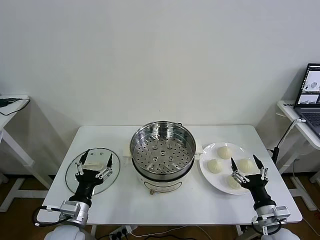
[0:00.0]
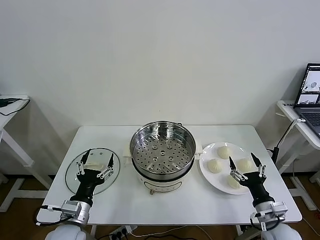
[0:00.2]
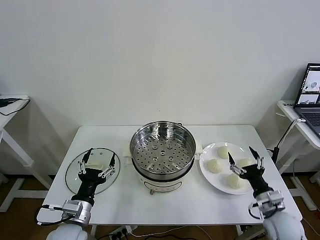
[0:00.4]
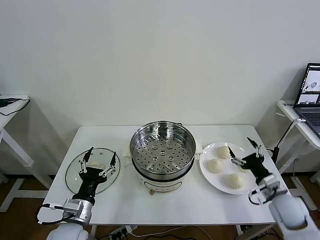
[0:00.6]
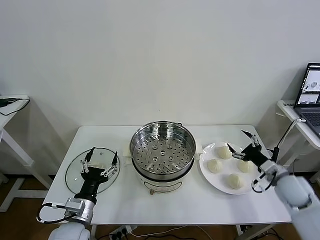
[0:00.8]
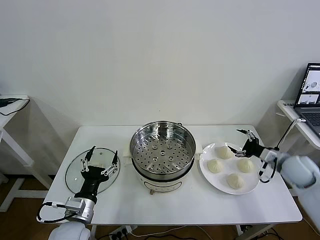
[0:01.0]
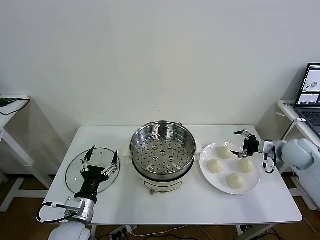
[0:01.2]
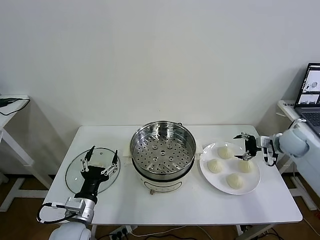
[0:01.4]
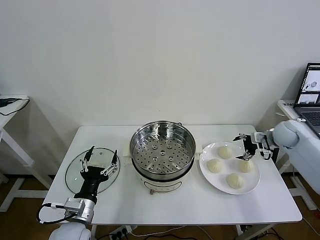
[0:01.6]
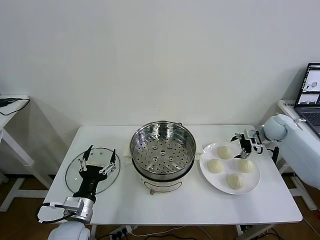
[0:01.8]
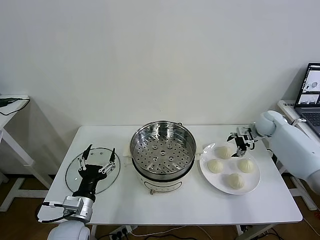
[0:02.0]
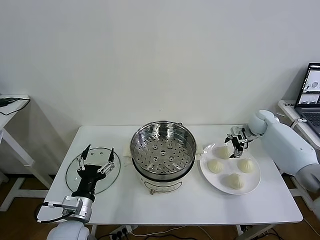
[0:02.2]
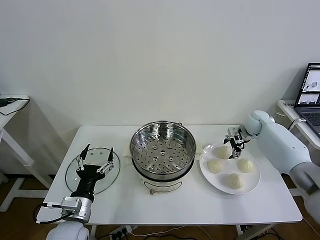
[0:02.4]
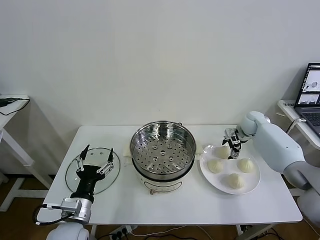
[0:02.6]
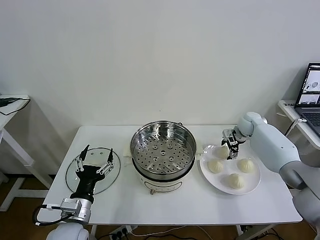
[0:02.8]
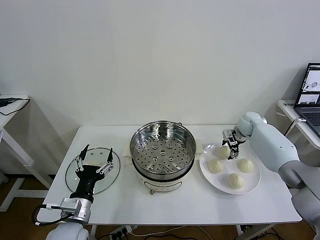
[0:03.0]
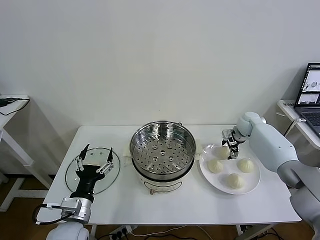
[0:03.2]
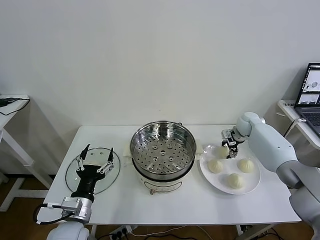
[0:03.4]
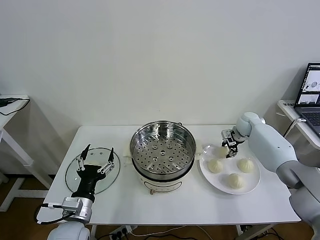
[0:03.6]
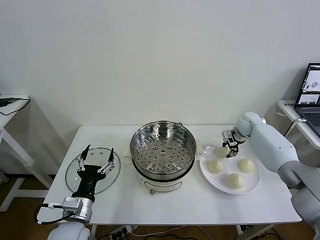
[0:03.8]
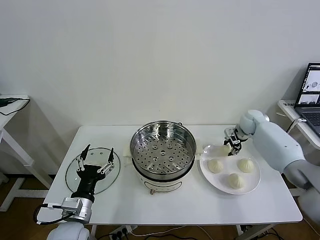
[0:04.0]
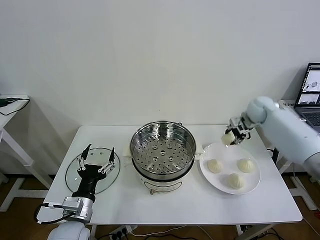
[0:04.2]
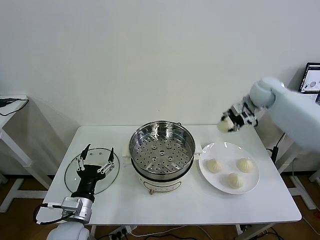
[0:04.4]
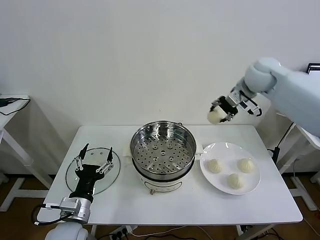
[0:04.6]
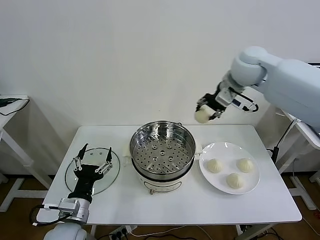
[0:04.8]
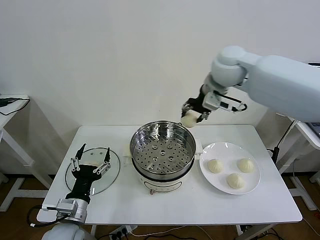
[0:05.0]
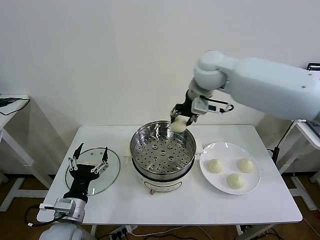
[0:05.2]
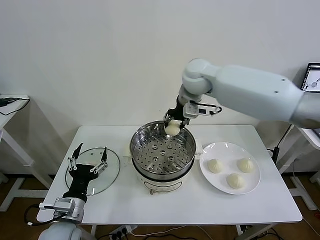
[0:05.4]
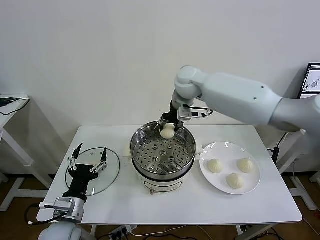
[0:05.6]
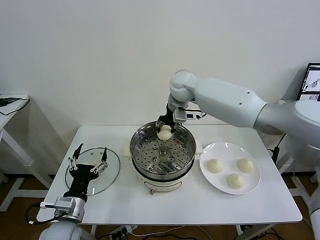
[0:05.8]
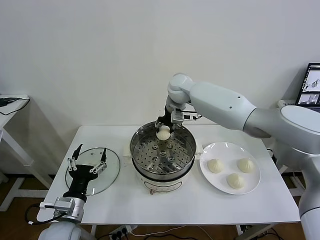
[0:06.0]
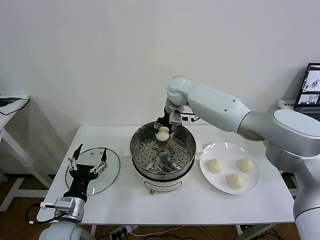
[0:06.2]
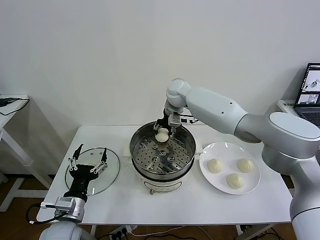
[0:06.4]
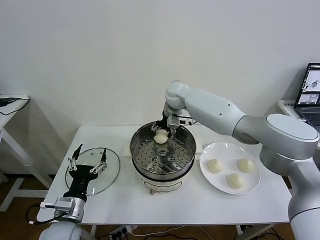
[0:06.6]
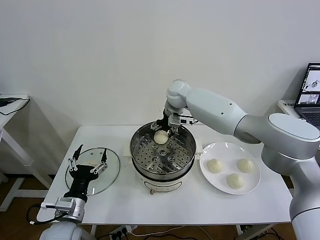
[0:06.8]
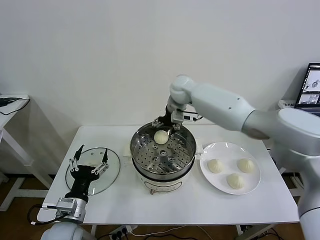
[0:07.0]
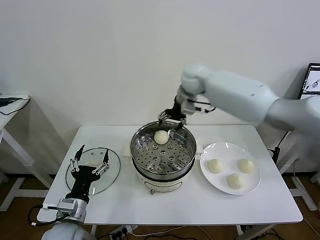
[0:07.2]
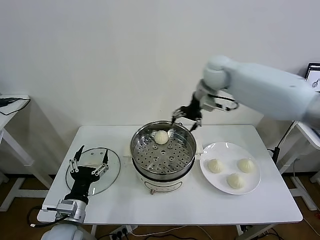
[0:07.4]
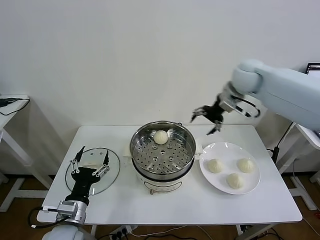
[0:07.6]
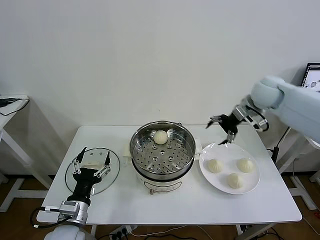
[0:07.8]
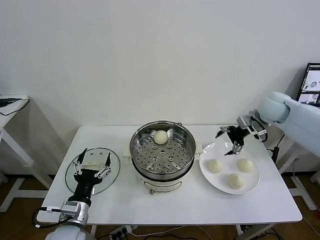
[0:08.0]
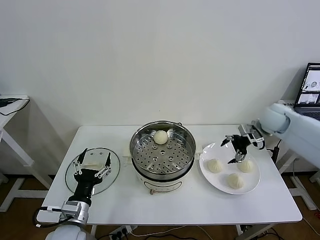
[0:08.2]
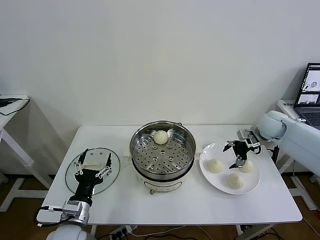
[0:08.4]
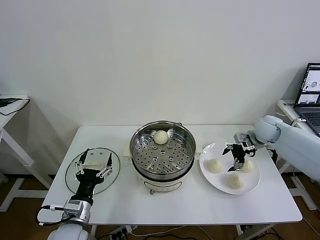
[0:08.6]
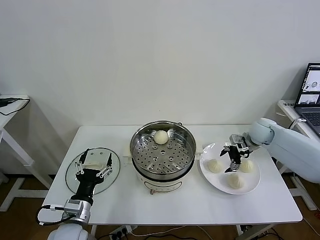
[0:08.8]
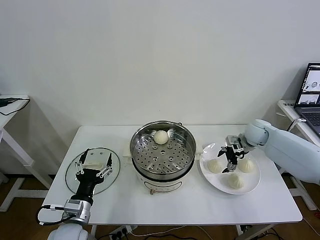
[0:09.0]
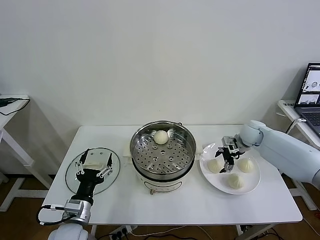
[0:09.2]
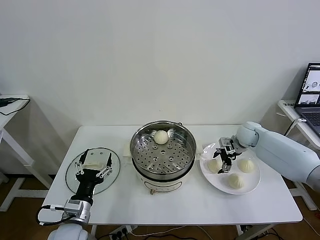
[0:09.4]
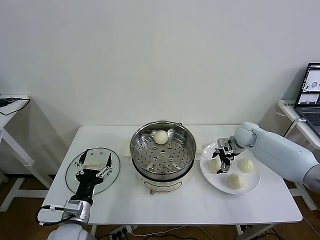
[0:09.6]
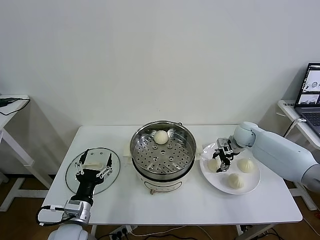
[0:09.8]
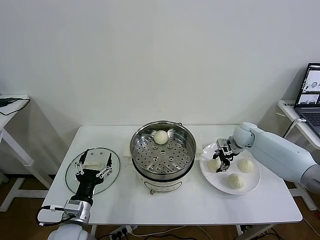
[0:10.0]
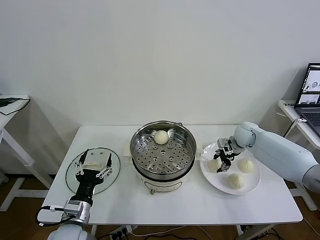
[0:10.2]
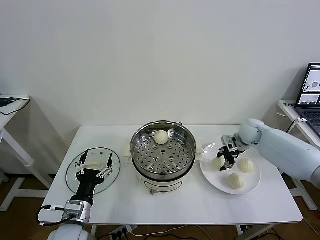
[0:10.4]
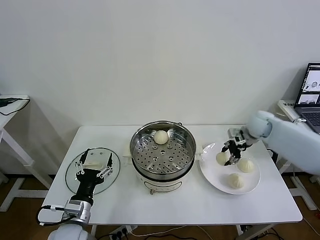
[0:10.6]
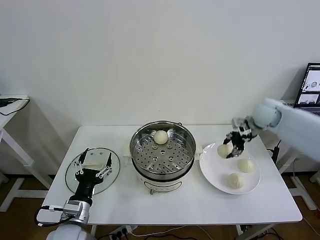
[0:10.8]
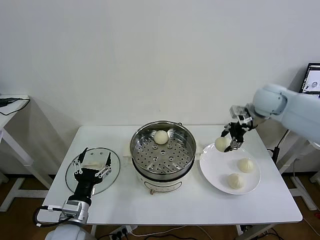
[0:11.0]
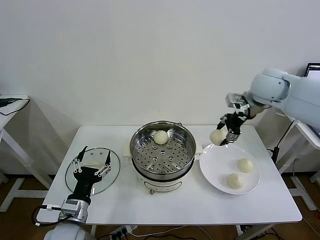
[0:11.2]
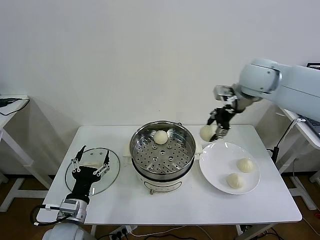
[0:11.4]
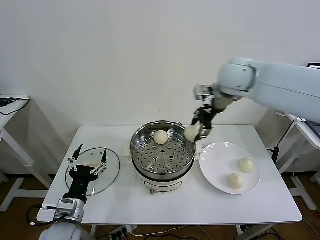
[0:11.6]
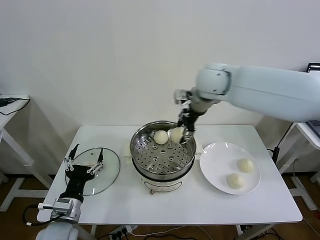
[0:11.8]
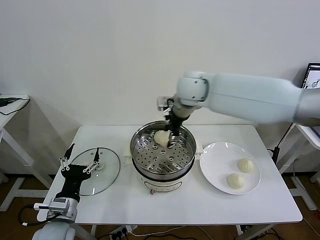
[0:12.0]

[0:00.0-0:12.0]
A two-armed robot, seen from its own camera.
Task of the whole recording: take steamed baozi put them in steamer then cover it.
Step, 0.0 to 3.8 s: Grasp the baozi in the plate with right gripper.
Step, 4.0 to 6.8 s: Place the baozi on the steamer with right gripper.
Step, 7.0 to 10.0 s: Grasp the baozi in the plate with right gripper.
1.6 to 3.0 s: The right gripper shifts about 10 cm forward and to the left.
3.0 to 4.4 s: The right gripper shifts roughly 20 cm upward, and closes its fingers.
4.4 to 6.0 s: The right gripper goes about 25 cm to the left.
6.0 to 7.6 s: The right gripper heads to the right, covering about 20 cm, and opens.
7.6 to 9.0 s: The right gripper heads downward, covering about 20 cm.
9.0 to 10.4 s: The right gripper closes.
10.4 to 12.0 s: The right gripper travels to the left and upward by some 35 cm.

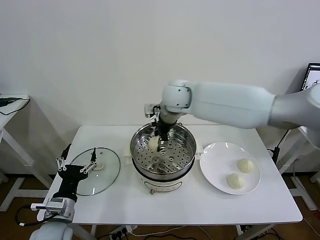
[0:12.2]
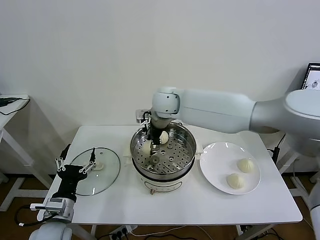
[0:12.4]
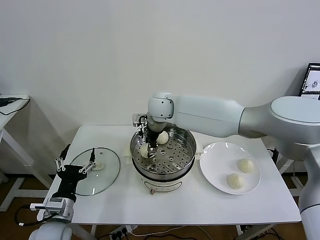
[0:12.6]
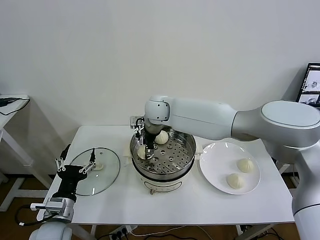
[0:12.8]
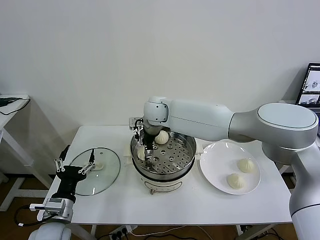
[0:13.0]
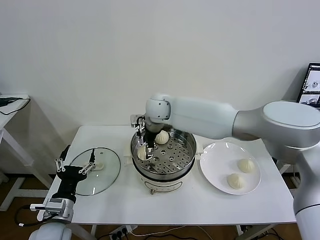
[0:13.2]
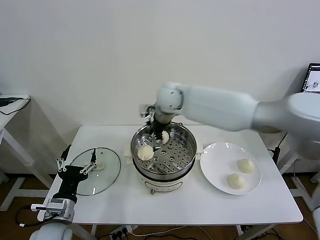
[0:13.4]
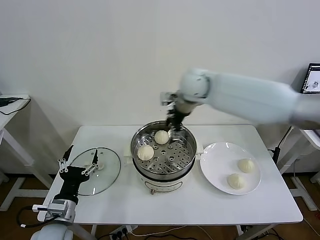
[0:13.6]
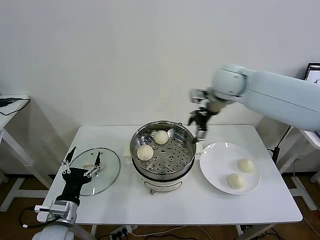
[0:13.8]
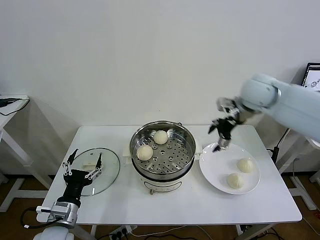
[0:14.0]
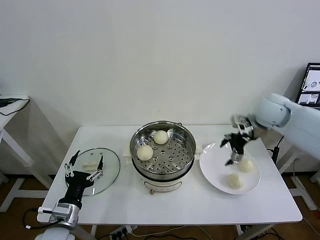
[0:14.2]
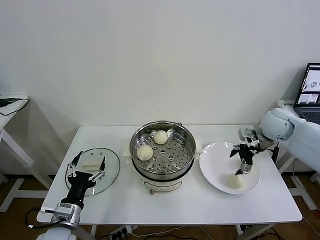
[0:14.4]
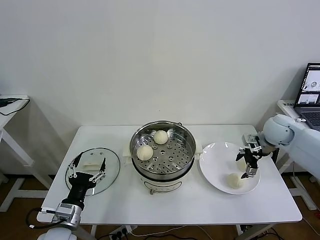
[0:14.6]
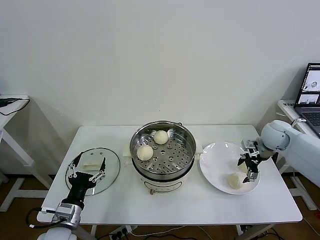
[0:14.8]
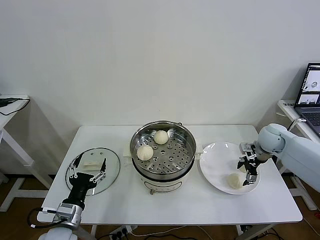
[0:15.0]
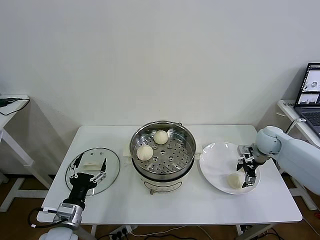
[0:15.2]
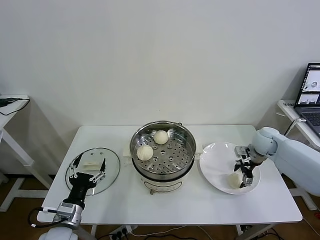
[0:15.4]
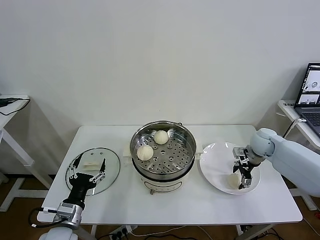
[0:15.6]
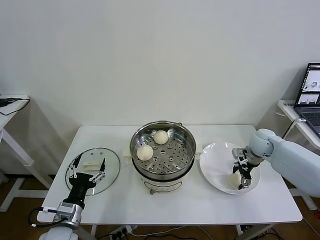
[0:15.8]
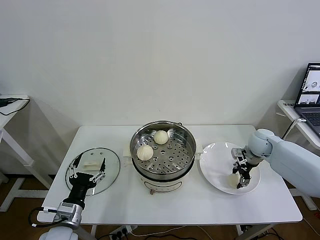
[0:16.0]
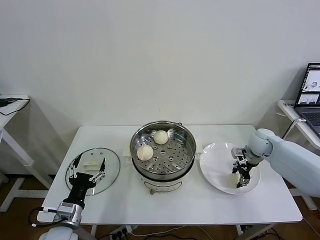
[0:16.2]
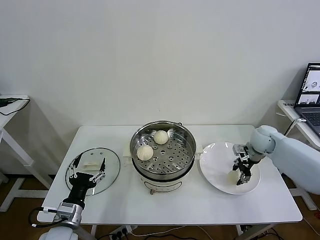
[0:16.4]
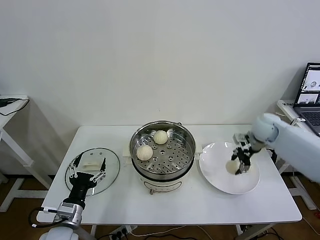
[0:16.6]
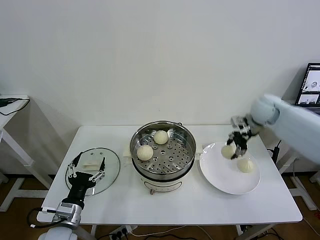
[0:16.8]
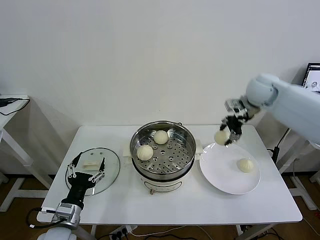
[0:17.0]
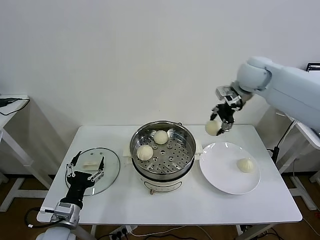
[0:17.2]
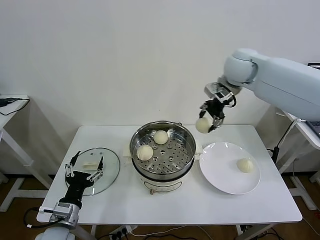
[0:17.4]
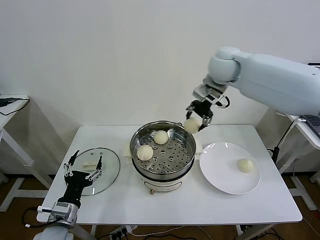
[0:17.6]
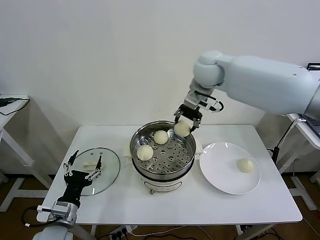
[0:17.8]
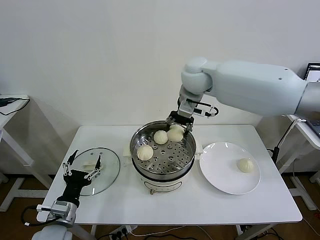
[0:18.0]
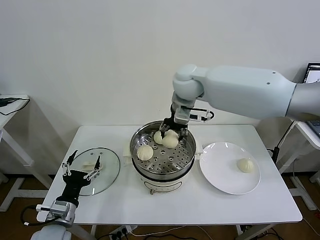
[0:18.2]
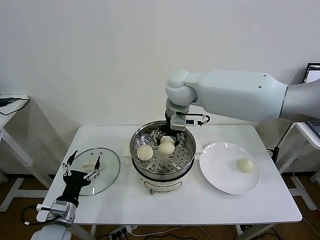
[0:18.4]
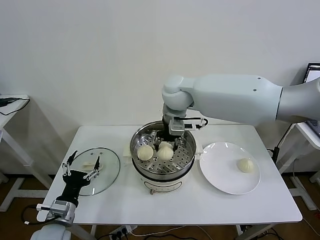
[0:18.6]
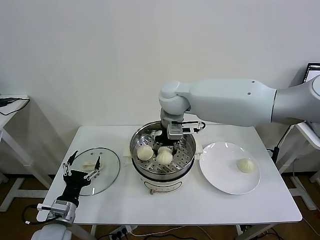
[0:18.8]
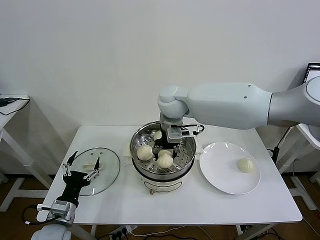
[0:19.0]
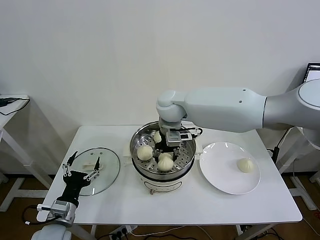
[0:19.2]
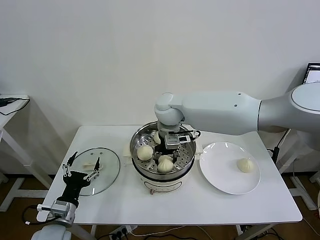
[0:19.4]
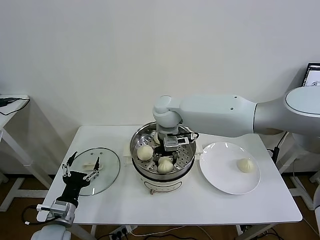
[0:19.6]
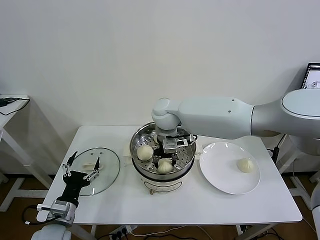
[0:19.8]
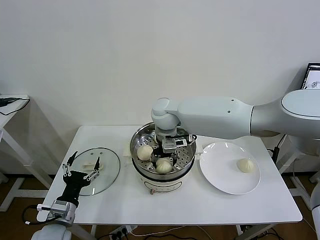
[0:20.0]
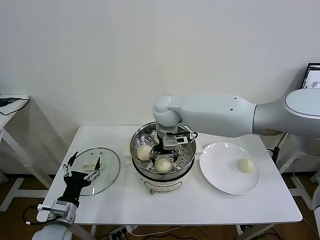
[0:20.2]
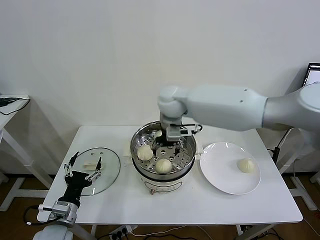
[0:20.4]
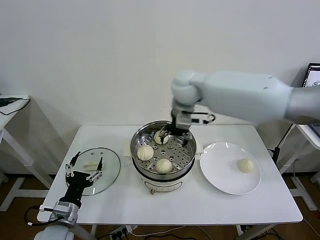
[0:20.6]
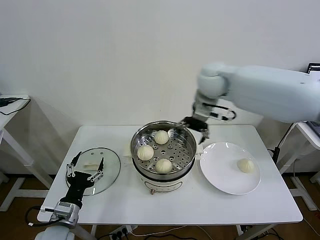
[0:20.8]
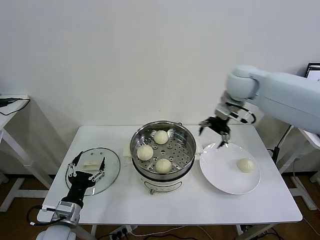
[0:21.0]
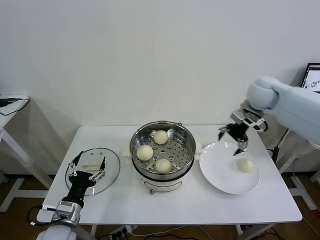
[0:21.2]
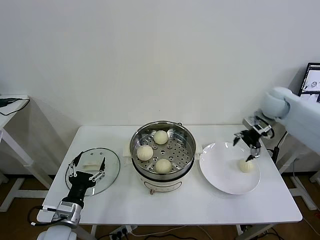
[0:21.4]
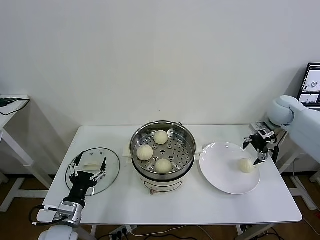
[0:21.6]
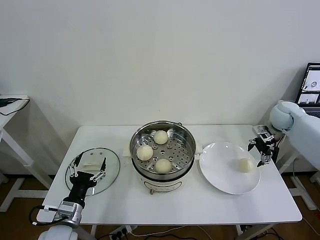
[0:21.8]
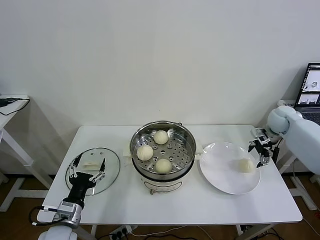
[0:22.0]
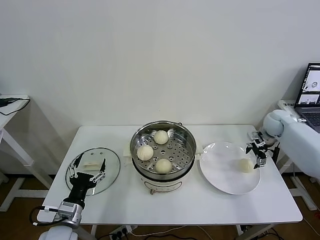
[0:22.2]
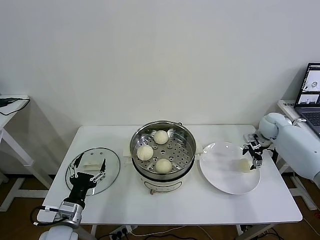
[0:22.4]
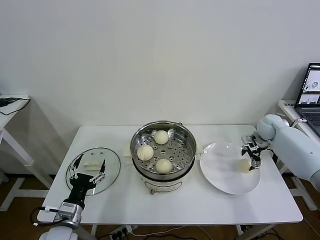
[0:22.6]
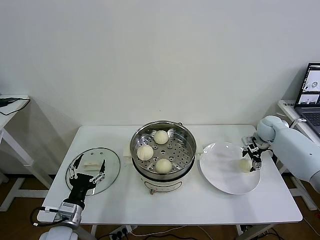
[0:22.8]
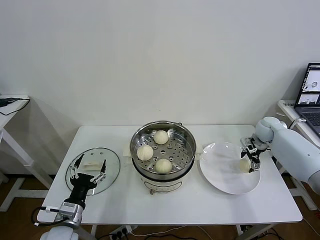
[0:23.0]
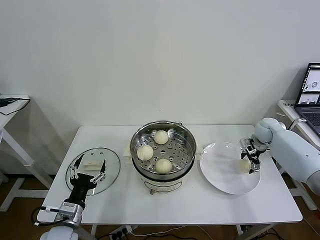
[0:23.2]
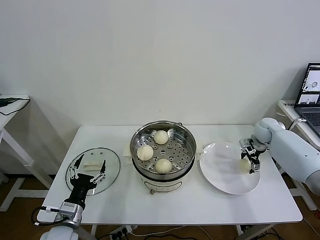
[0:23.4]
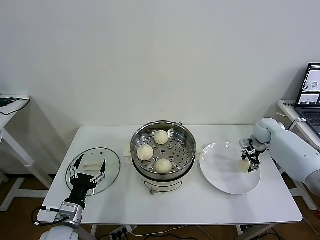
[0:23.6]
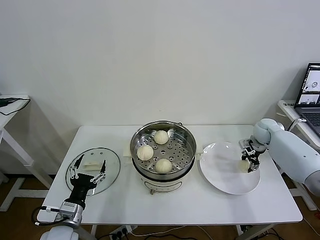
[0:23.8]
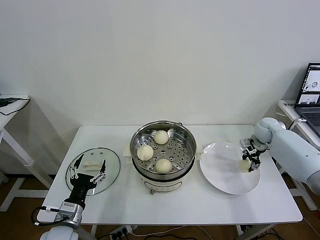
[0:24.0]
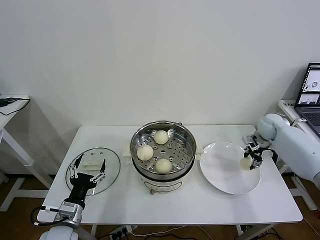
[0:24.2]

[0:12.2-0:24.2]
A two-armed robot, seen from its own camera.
Task of the whole recording: take steamed baozi put them in steamer then cover it.
Step, 13.4 to 16.0 s: Grasp the baozi in the plate with right gripper.
Step, 16.4 to 20.2 s: Place the baozi on the steamer with right gripper.
Step, 20.4 to 23.6 s: Grasp the baozi in the plate with right gripper.
12.2 to 13.8 s: The right gripper goes approximately 15 cm to the right, and opens.
13.8 to 15.2 s: The right gripper goes approximately 30 cm downward and to the right.
15.2 to 16.6 s: The right gripper shifts by roughly 5 cm, and closes its fingers.
16.6 to 18.2 s: The right gripper goes approximately 35 cm to the left and upward.
18.2 to 19.8 s: The right gripper moves downward and to the left, roughly 10 cm.
19.8 to 21.2 s: The right gripper shifts roughly 30 cm to the right, and opens up.
21.2 to 22.6 s: The right gripper heads downward and to the right, covering about 20 cm.
22.6 to 24.2 s: The right gripper closes.
